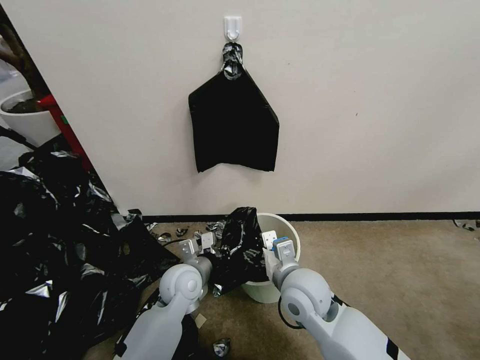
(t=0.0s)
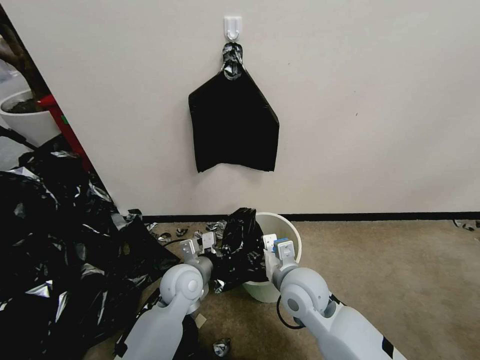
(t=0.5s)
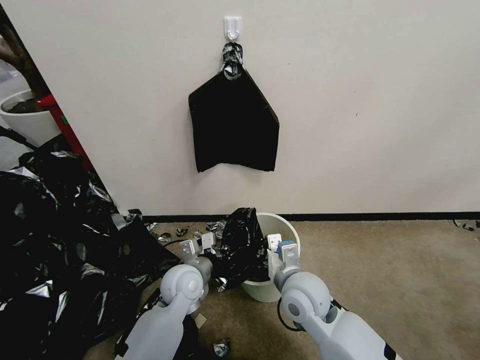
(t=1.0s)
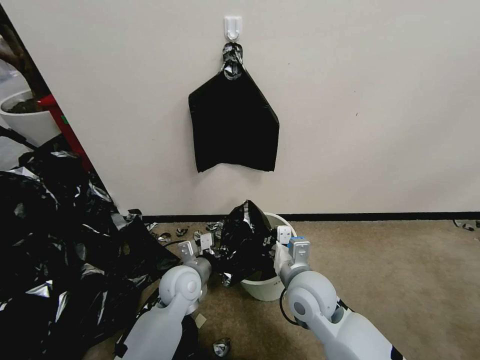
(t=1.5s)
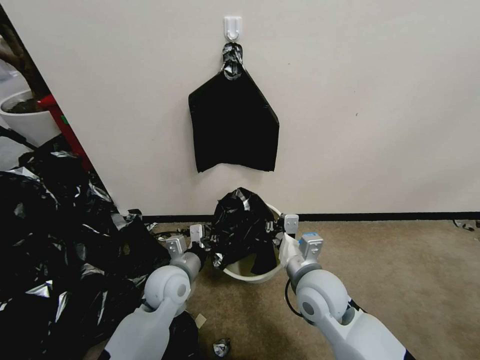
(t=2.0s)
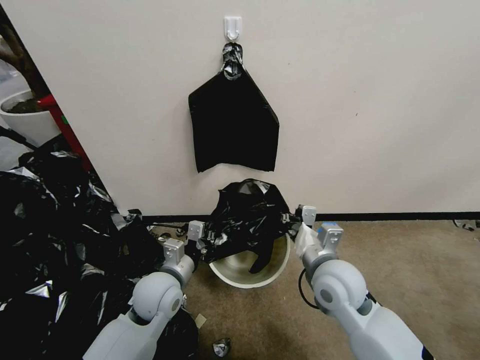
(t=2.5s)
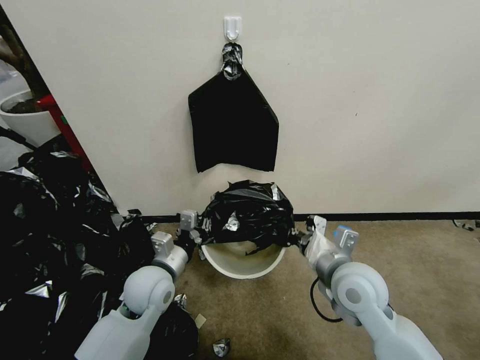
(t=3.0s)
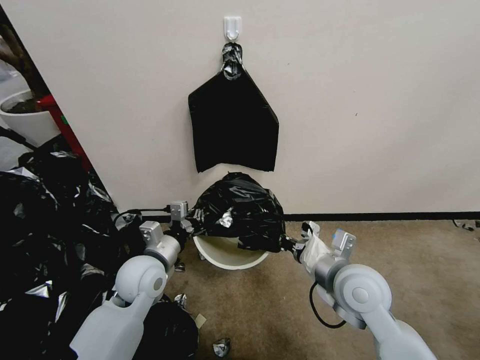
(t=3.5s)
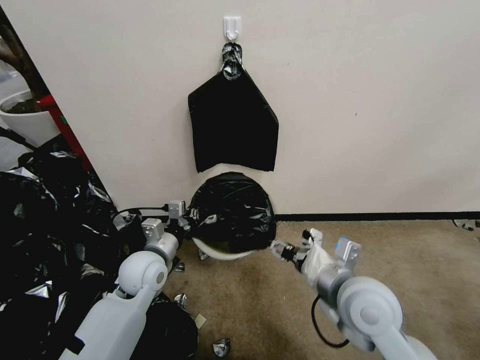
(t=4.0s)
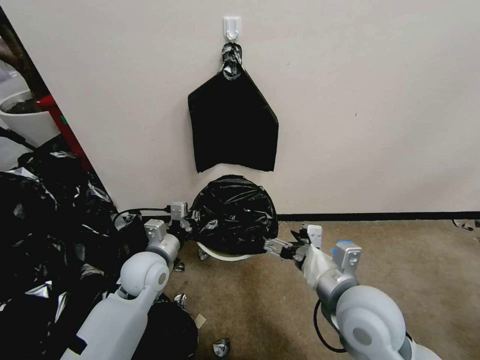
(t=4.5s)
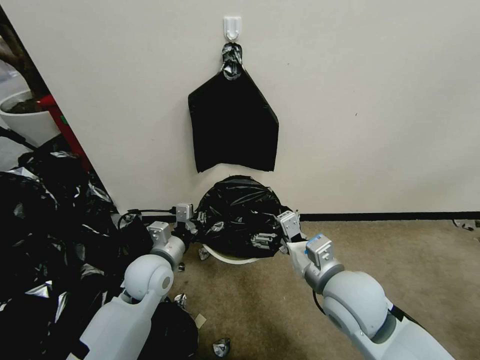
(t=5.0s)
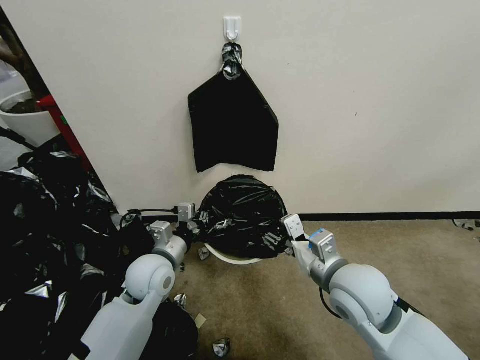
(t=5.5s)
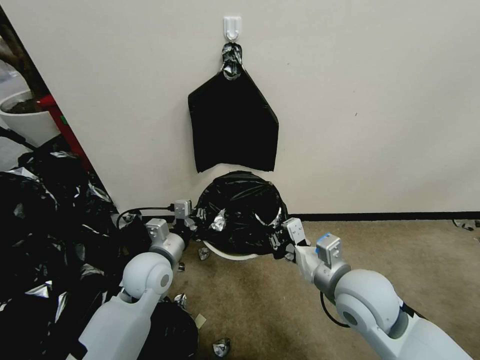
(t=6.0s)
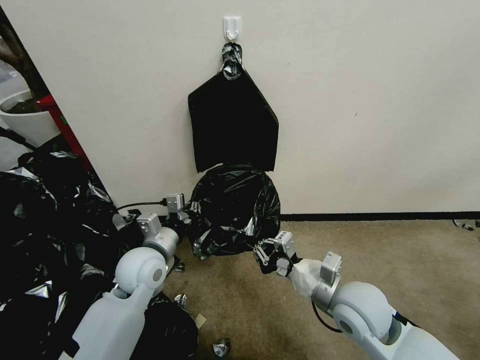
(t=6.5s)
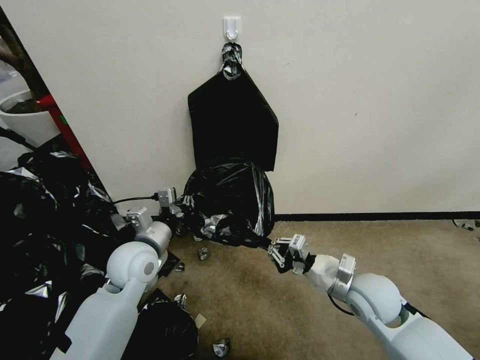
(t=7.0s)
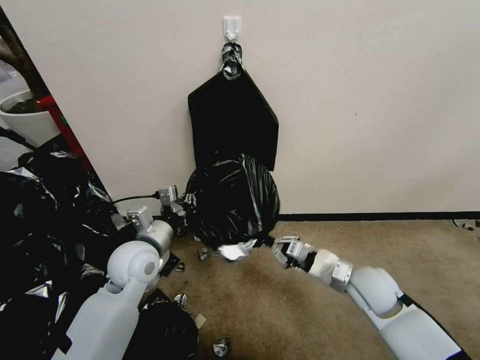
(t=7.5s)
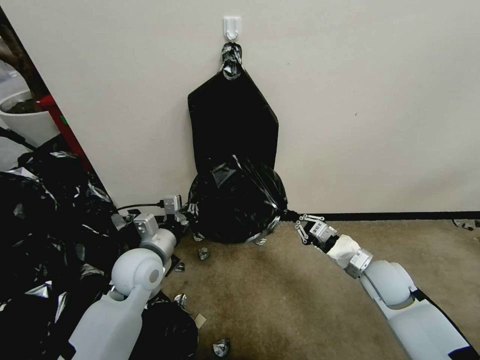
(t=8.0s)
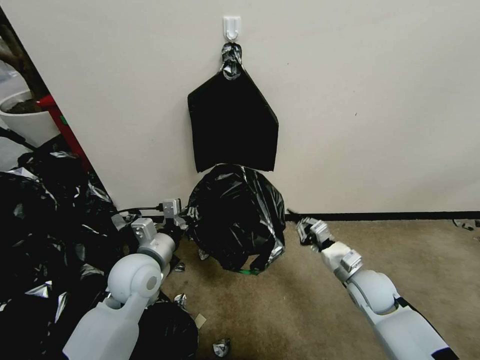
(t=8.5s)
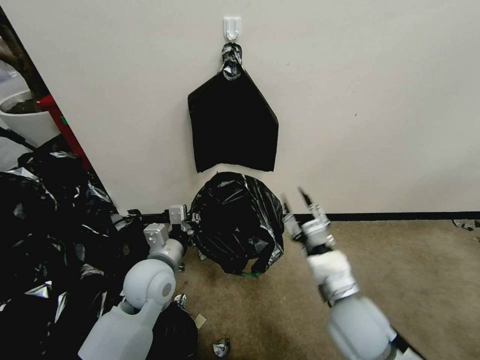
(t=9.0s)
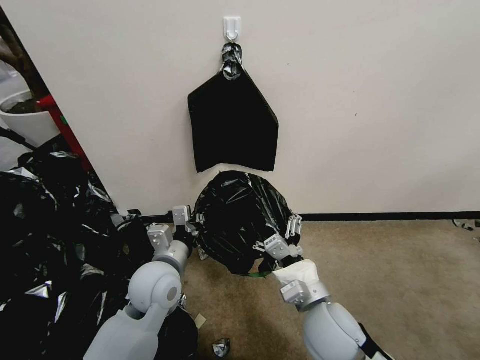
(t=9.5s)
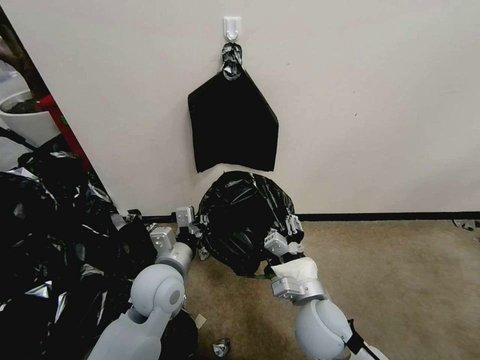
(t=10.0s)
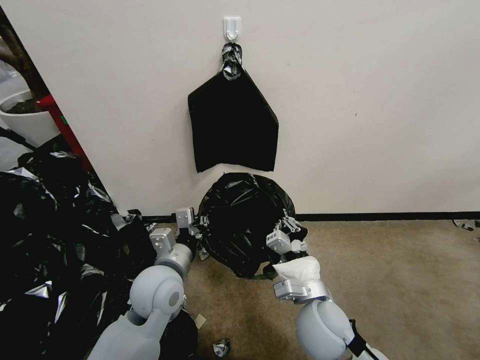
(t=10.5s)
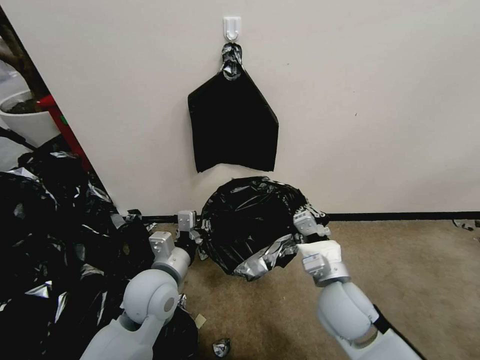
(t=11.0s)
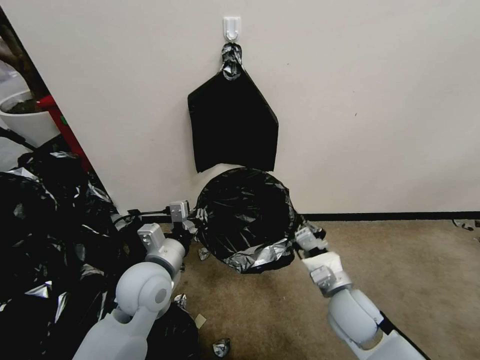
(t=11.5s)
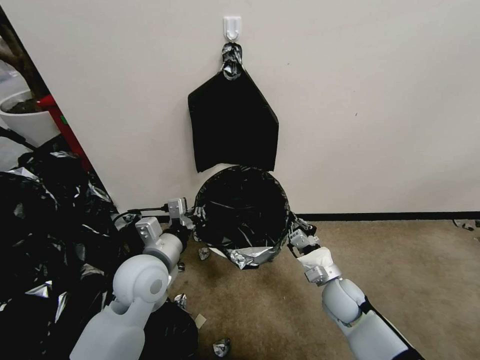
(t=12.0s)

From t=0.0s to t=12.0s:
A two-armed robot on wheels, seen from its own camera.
Task of the whole recording: Place a trash bag onto the trash bin.
From t=0.0s to t=2.0s: The right gripper closes up.
From t=2.0s to t=4.0s: The right gripper travels upward and to the right by some 10 cm, and opens its fingers. The left gripper shifts about 5 cm to the left.
From t=4.0s to t=6.0s: The right gripper closes up.
From t=6.0s to t=8.0s: The right gripper shifts roughly 15 cm to the right, downward and forward.
From t=8.0s to t=10.0s: The left gripper is displaced to the right by roughly 5 cm. The right gripper shifts some 20 cm to the left and backward, and opens.
From t=10.0s to t=12.0s: The right gripper moves to the right, downward and forward, approximately 15 cm, and closes up.

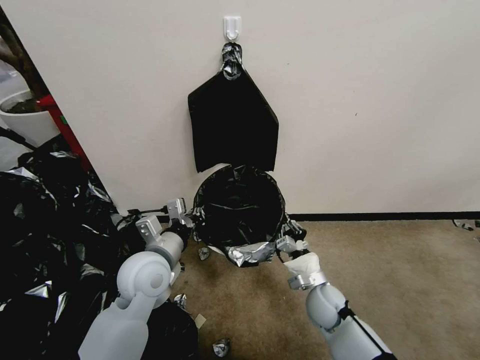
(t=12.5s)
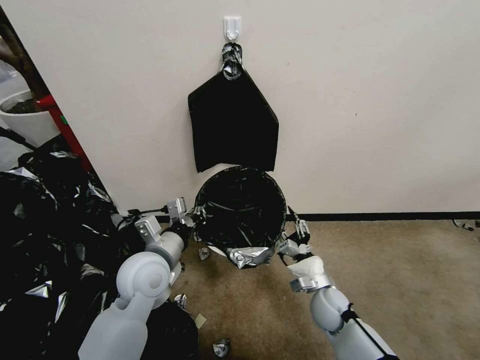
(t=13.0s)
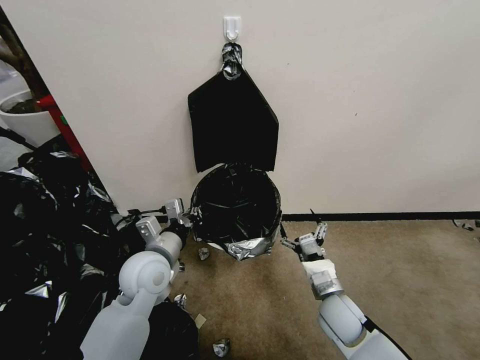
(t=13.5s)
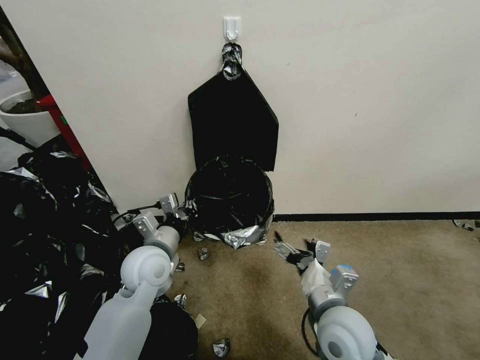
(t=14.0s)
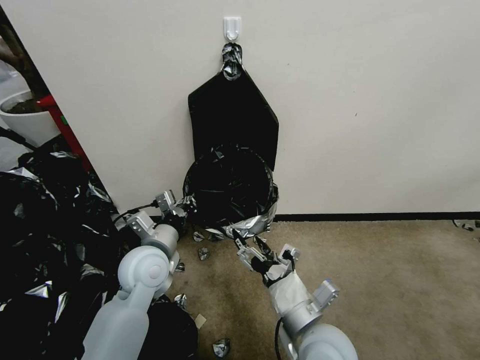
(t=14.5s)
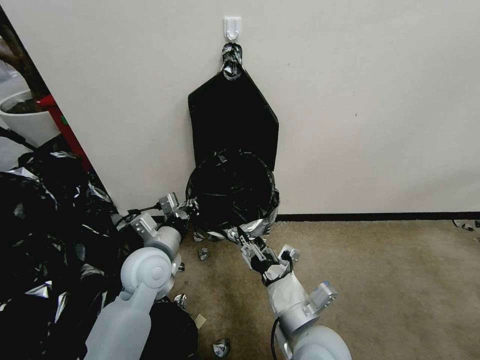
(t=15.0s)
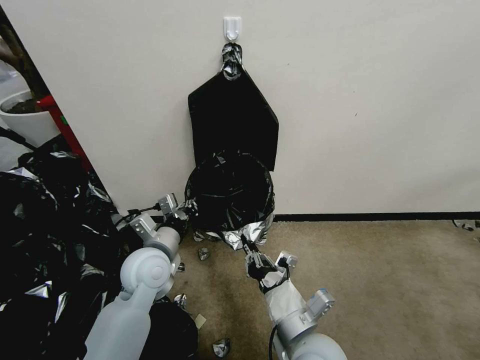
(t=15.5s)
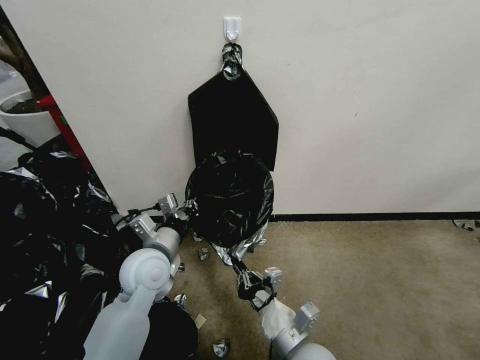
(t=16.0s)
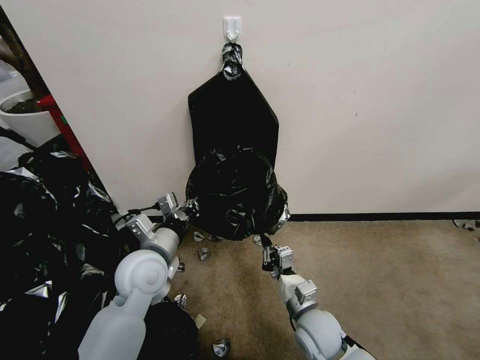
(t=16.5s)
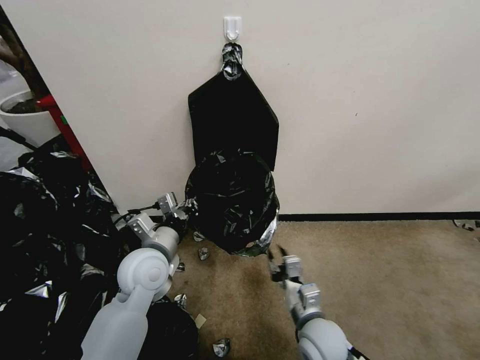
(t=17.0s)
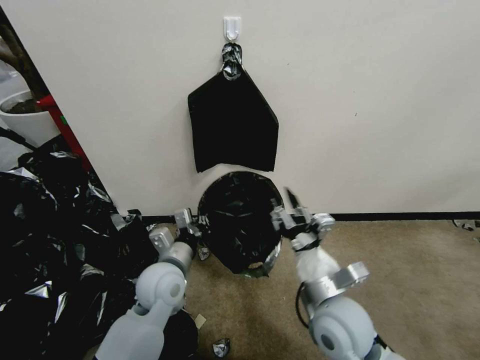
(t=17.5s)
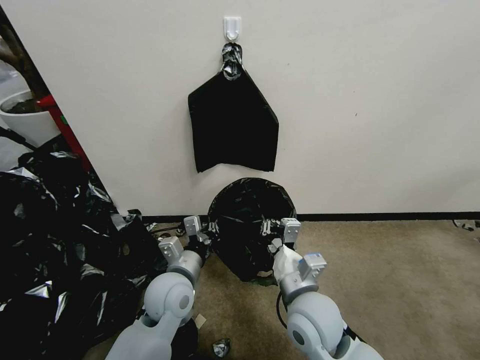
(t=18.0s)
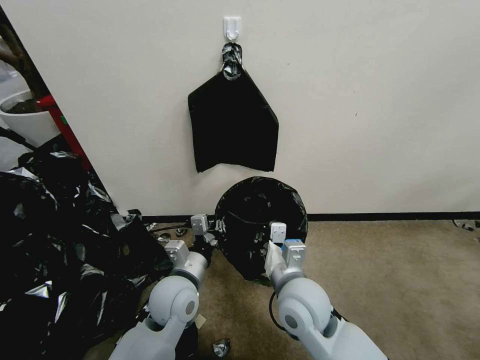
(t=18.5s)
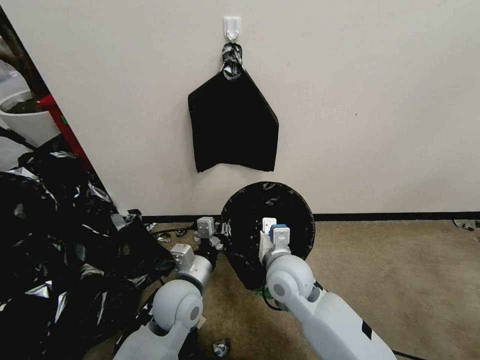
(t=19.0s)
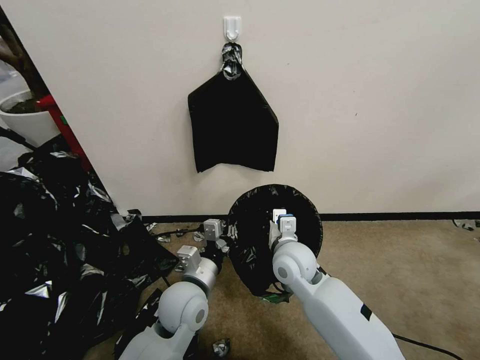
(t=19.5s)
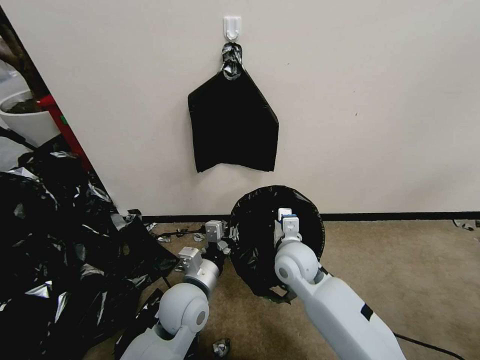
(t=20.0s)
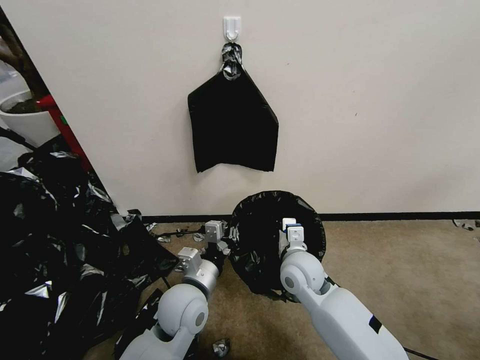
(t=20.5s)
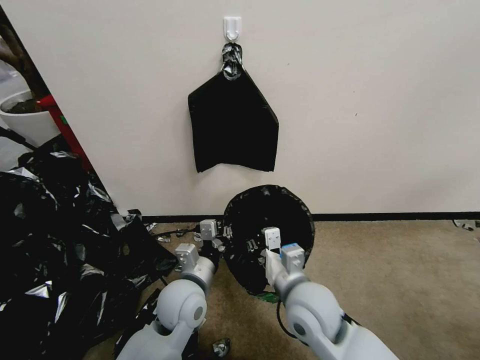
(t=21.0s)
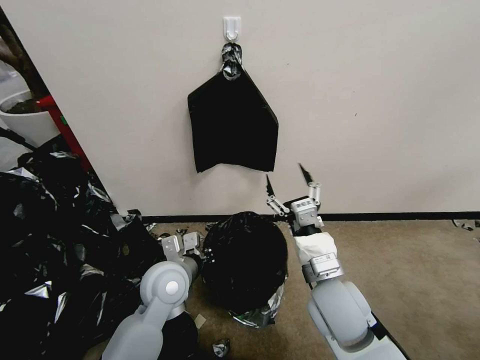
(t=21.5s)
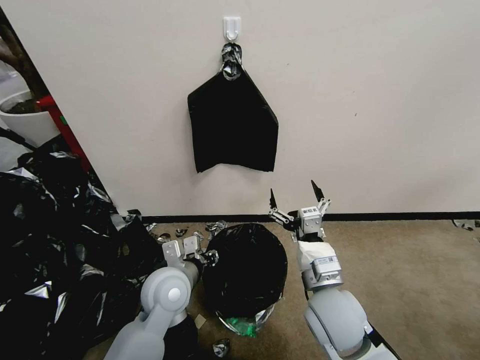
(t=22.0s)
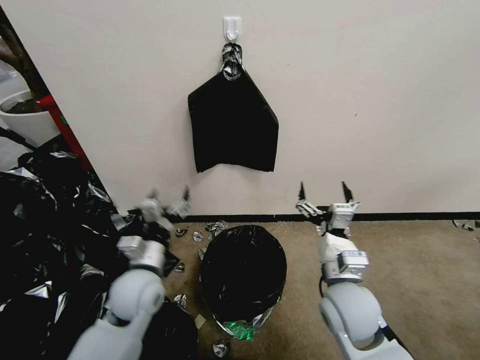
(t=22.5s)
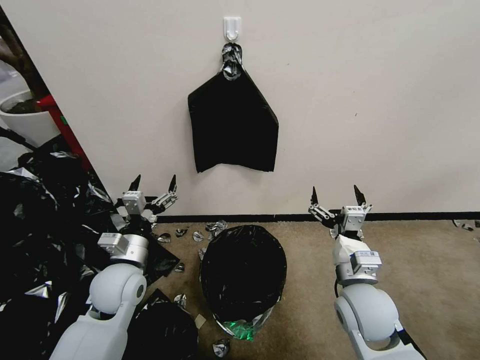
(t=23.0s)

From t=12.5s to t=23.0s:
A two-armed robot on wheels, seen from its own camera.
Task of the whole recording: Place a trash bag onto the trash bin.
From t=12.5s to t=14.5s: The right gripper moves upward, backward and to the left, about 20 cm, and opens.
From t=14.5s to t=16.5s: The right gripper heads downward and forward, covering roughly 15 cm, and closes its fingers.
From t=16.5s to t=19.0s: The right gripper shifts some 15 cm upward, forward and to the left, and opens, then closes again. Meanwhile the left gripper is displaced to the right and downward by approximately 10 cm.
From t=19.0s to t=21.0s: The right gripper goes roughly 5 cm backward.
From t=21.0s to t=23.0s: The right gripper goes approximately 10 cm to the right, and opens its fingers, while the left gripper goes some 15 cm to the left, and opens up.

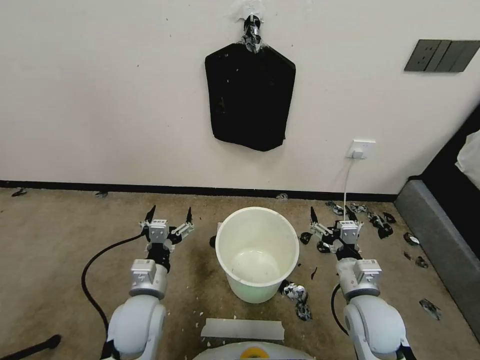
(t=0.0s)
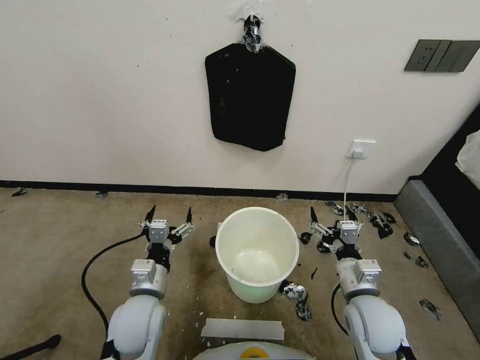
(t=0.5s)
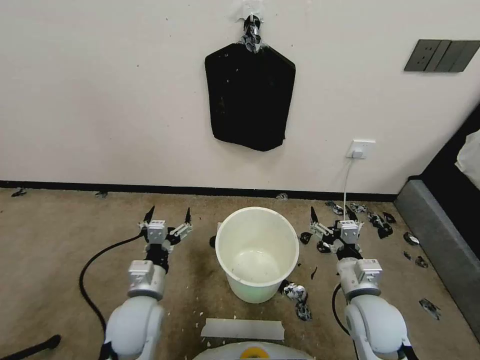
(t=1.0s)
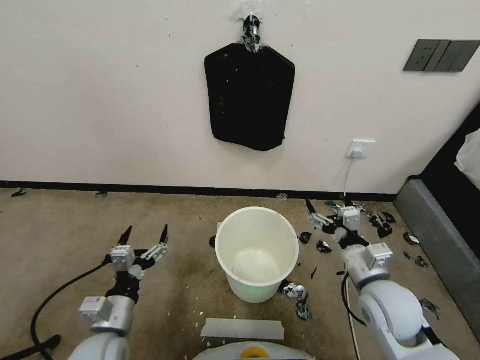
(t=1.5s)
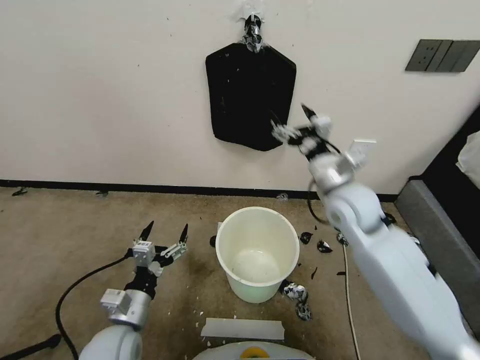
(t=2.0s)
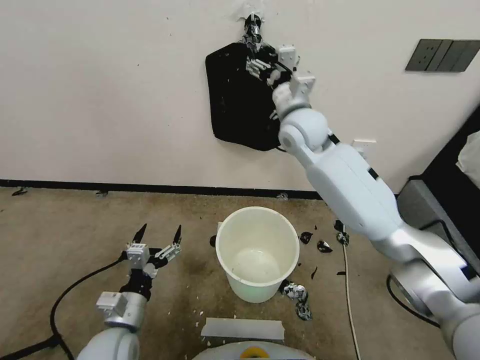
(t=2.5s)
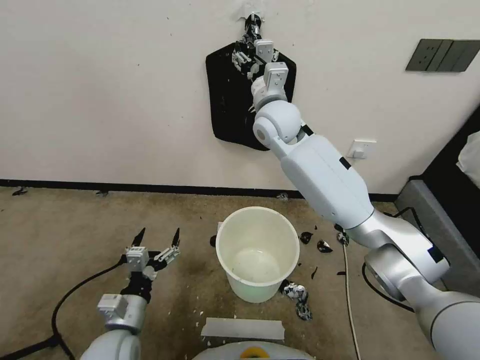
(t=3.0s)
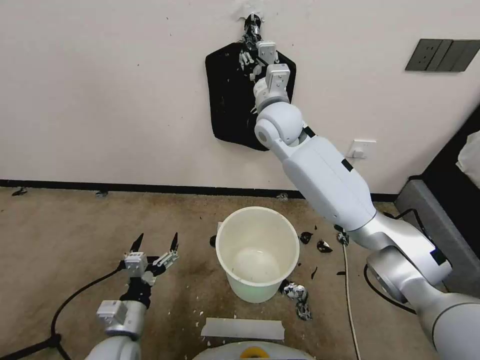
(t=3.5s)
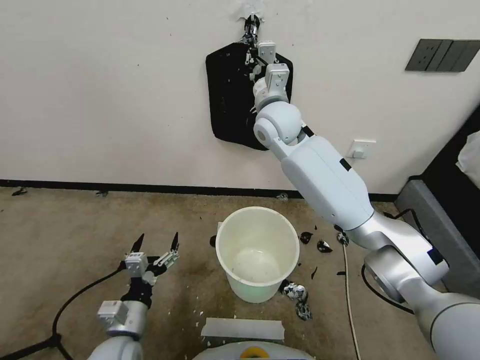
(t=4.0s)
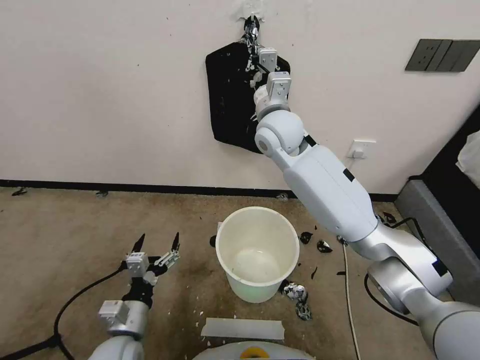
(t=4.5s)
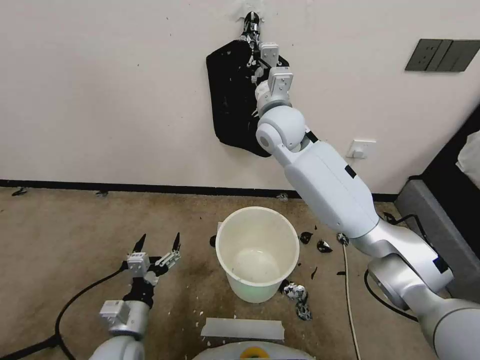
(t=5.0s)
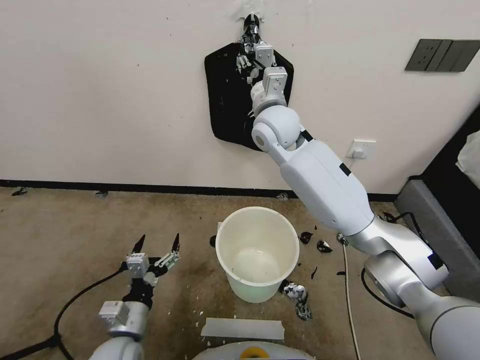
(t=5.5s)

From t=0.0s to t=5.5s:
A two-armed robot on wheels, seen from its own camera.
Task of the whole recording: Place a trash bag onto the trash bin.
From t=2.0s to t=3.5s: The right gripper moves to the left, forward and upward, approximately 20 cm, and closes.
From t=3.5s to t=5.5s: The right gripper closes, then opens again.
